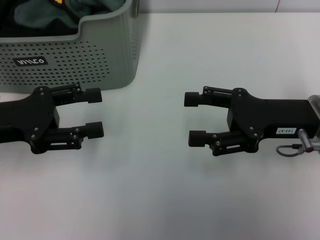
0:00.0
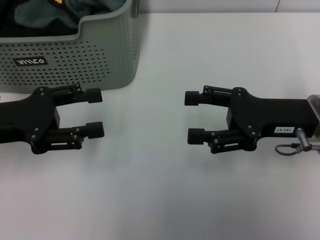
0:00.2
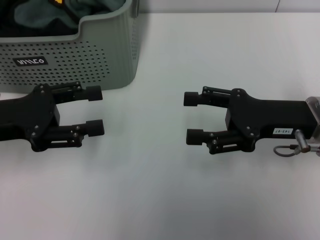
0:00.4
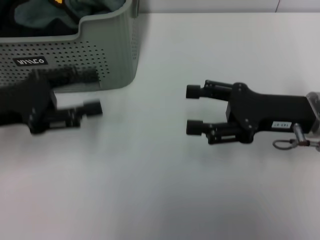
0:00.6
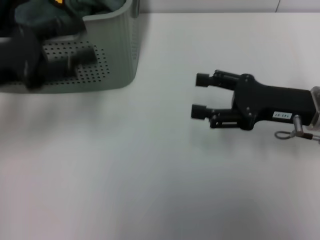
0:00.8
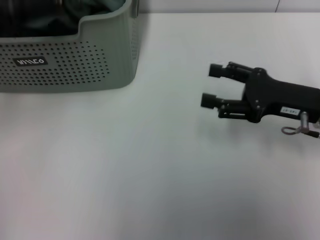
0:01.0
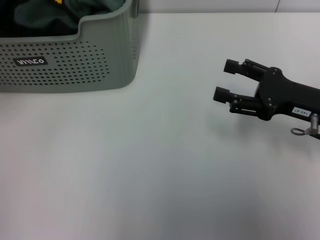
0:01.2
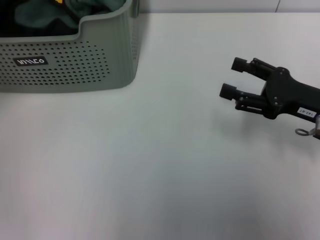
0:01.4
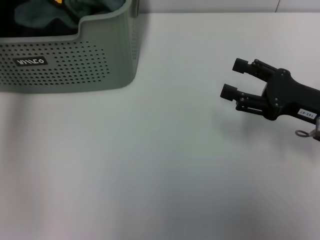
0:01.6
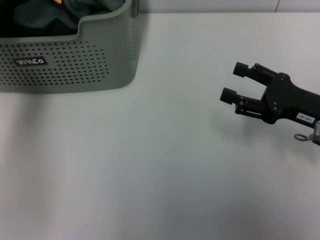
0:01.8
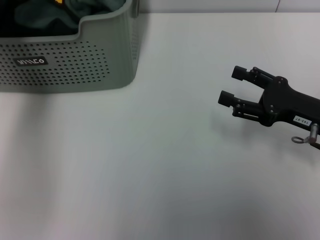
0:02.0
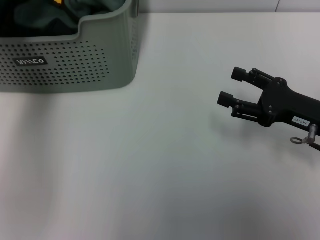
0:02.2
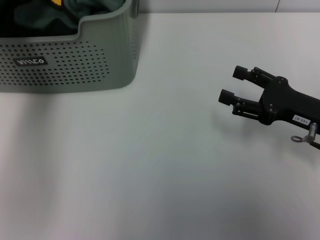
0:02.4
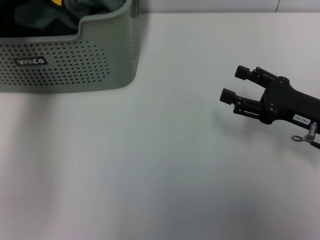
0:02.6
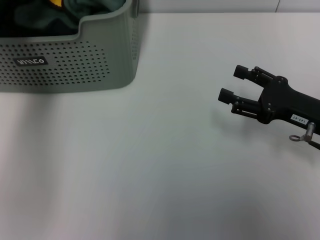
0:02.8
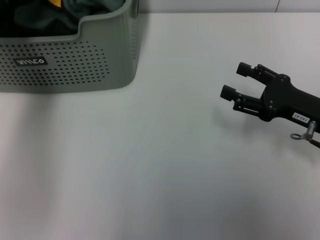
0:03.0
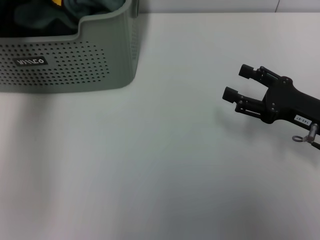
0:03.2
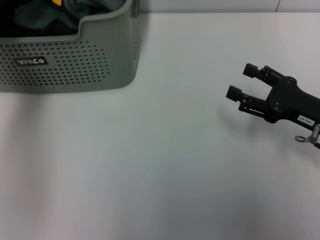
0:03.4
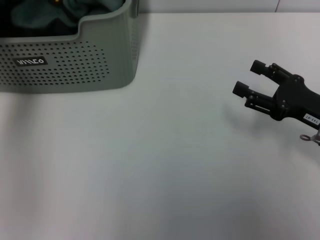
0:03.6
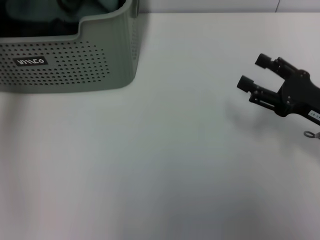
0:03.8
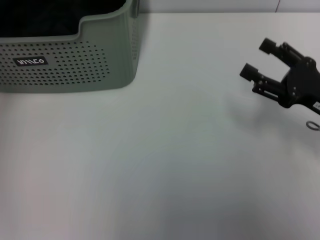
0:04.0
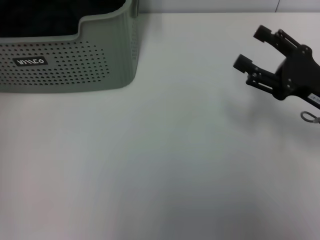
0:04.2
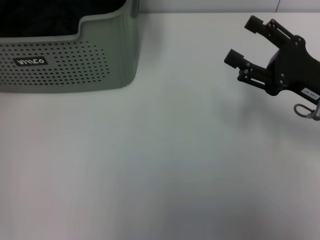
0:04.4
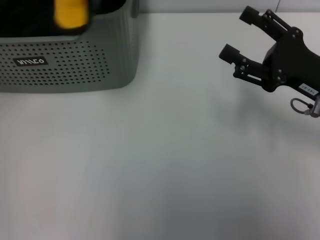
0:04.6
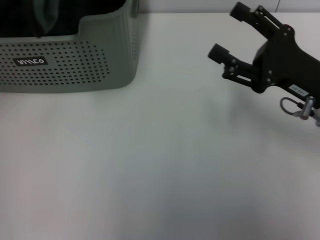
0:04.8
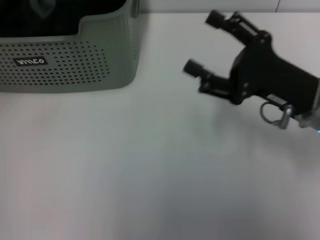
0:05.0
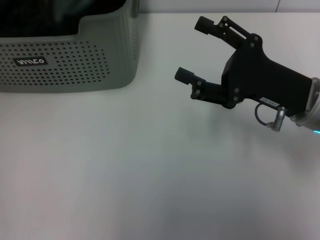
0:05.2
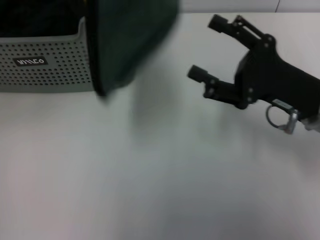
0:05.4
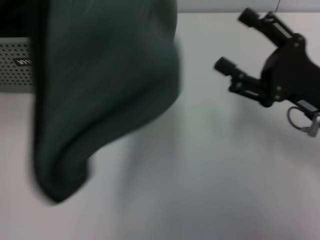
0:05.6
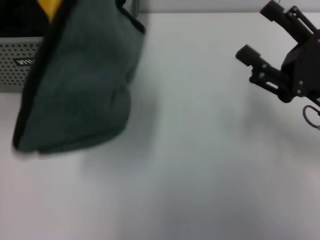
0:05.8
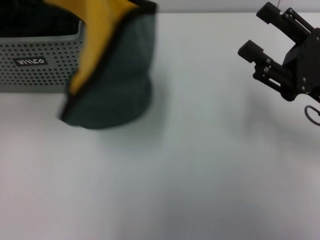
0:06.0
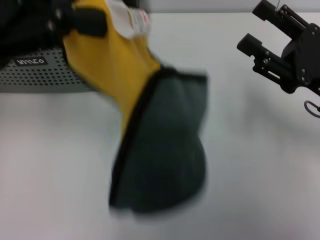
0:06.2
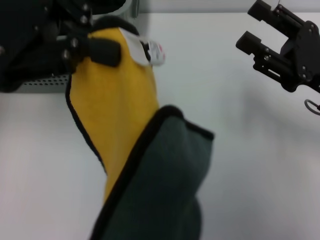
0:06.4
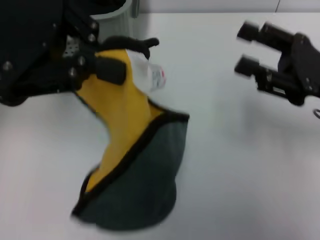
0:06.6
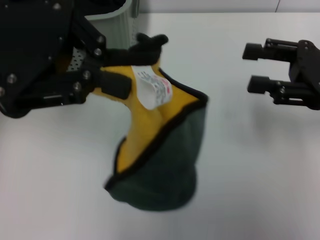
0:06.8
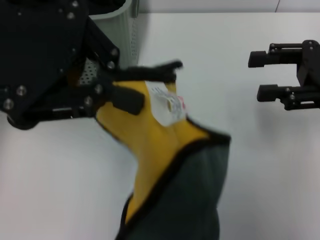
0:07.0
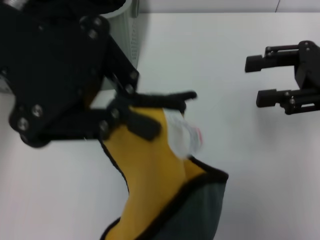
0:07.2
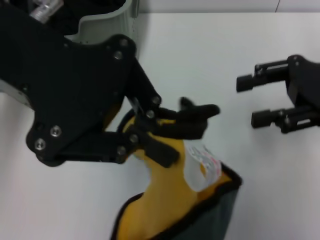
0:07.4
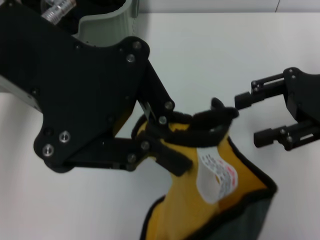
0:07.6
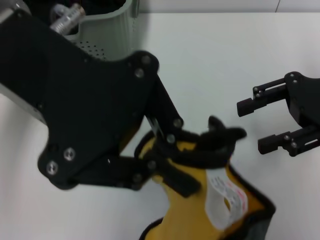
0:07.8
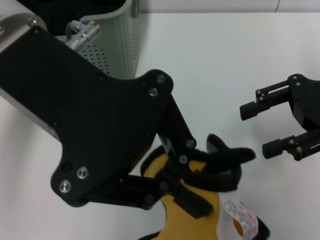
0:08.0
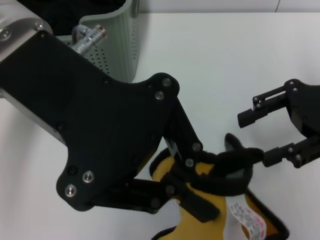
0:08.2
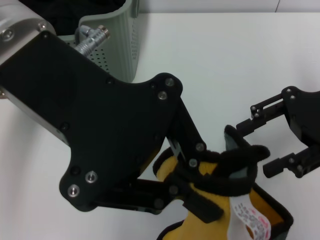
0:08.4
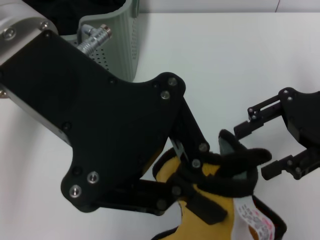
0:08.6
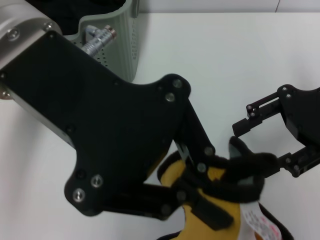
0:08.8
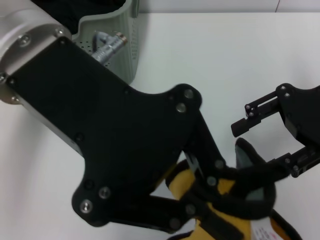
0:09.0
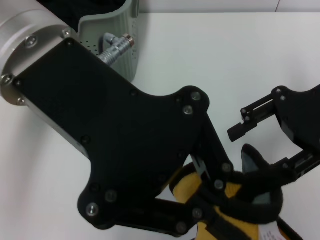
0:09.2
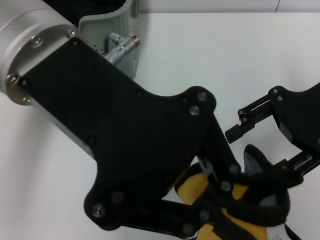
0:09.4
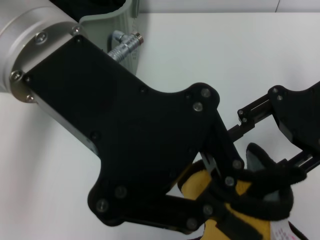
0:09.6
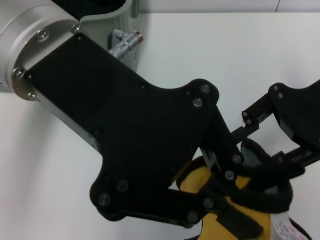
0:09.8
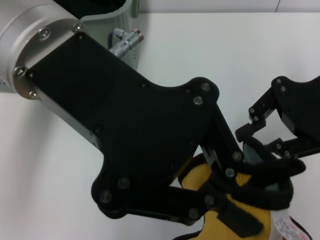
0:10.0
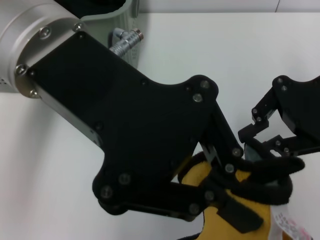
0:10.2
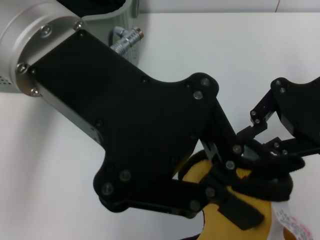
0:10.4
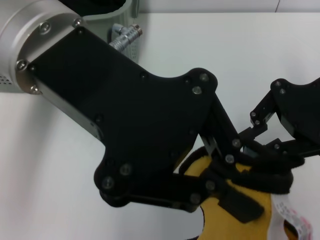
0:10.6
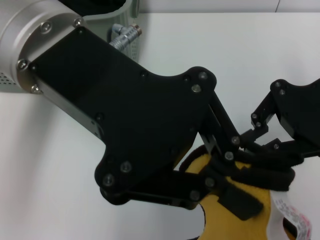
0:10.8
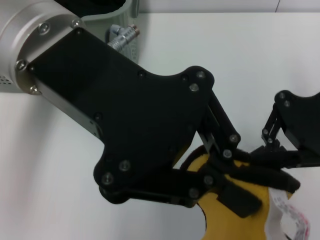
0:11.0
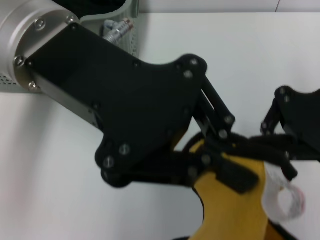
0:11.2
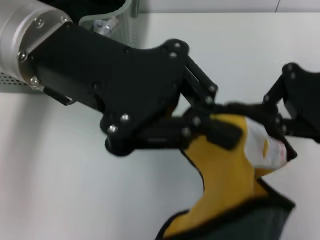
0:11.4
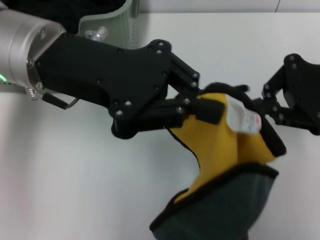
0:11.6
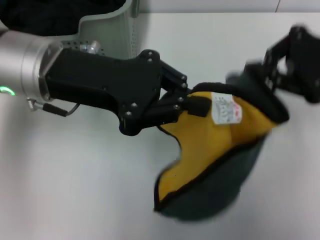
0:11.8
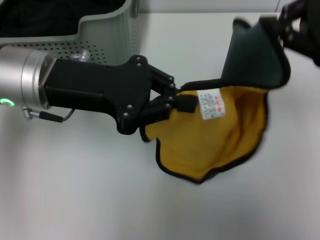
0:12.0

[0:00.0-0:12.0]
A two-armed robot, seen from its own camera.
Task of the whole recording: pick up the towel from the storage box and lay it flat on the table.
Step, 0:00.0 to 0:03.2: Pick up a towel with the left gripper.
Step, 0:03.4 to 0:10.8: Spread the towel flat with the left gripper.
0:00.0 to 0:01.6: The right gripper shifts by roughly 5 cm, while the left gripper travels upward and forward by some 20 cm.
0:01.6 to 0:03.0: The left gripper shifts roughly 5 cm downward.
0:03.0 to 0:04.4: The left gripper shifts about 15 cm upward, backward and to the left, and closes its fingers.
0:04.4 to 0:06.0: The left gripper changes place by about 5 cm.
0:06.0 to 0:07.6: The left gripper goes about 10 cm to the right, while the right gripper moves upward and forward, about 10 cm.
0:09.0 to 0:10.4: The right gripper closes.
0:10.4 to 0:12.0: The left gripper travels downward and to the left by roughly 10 cm.

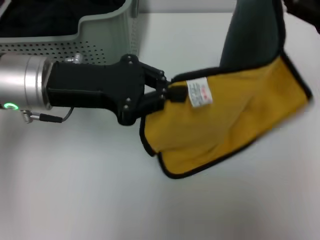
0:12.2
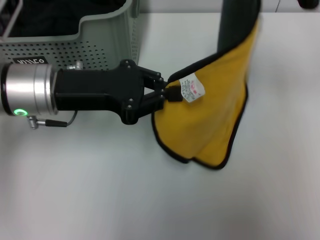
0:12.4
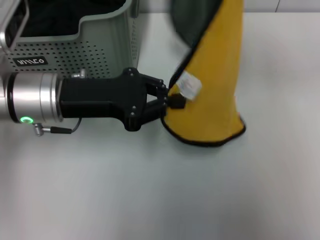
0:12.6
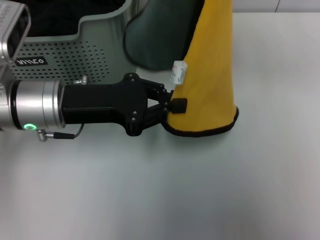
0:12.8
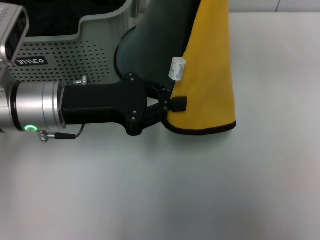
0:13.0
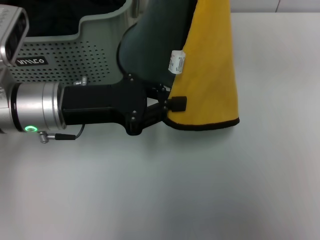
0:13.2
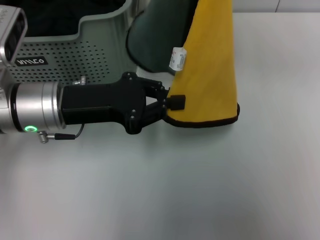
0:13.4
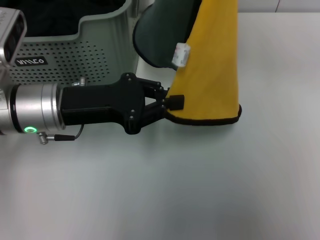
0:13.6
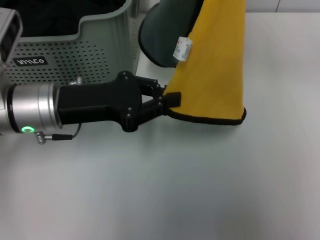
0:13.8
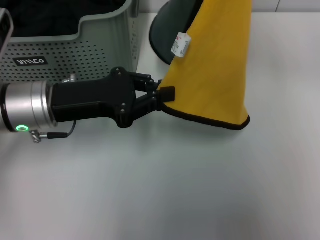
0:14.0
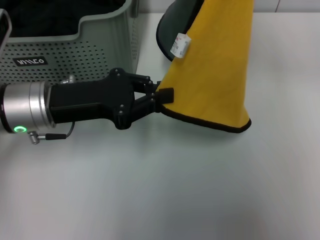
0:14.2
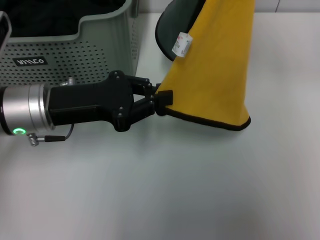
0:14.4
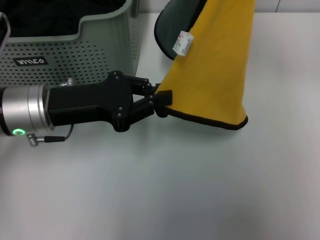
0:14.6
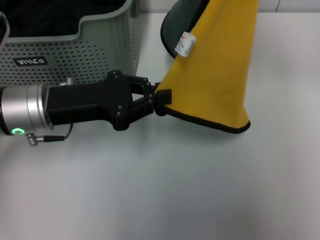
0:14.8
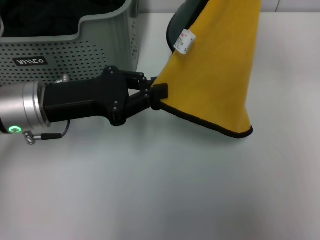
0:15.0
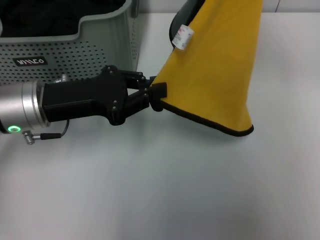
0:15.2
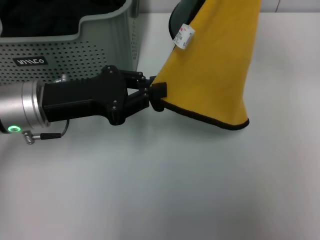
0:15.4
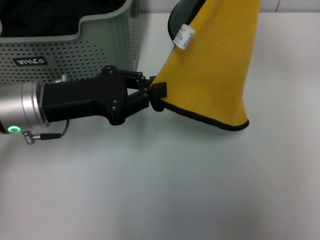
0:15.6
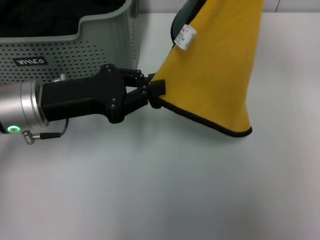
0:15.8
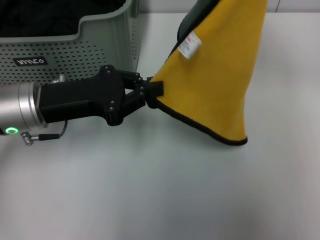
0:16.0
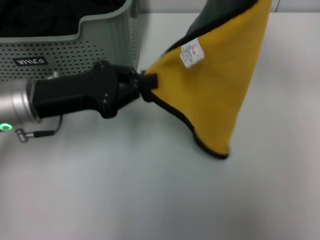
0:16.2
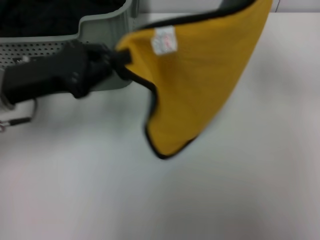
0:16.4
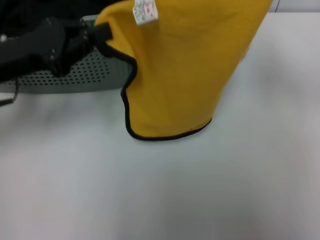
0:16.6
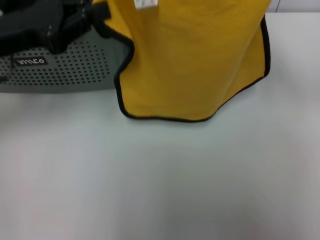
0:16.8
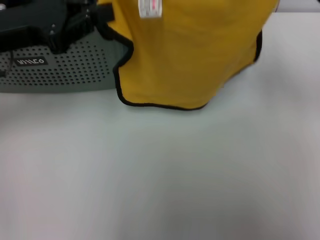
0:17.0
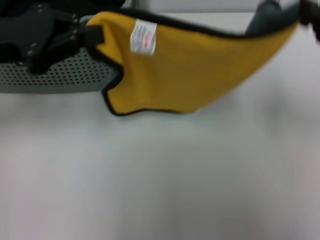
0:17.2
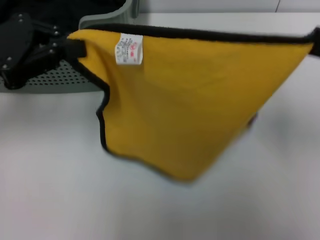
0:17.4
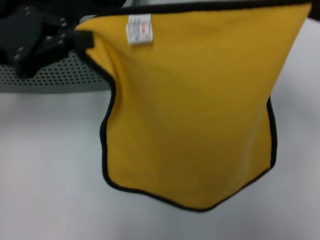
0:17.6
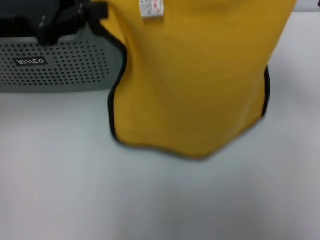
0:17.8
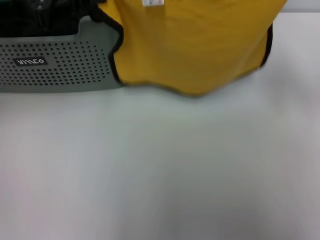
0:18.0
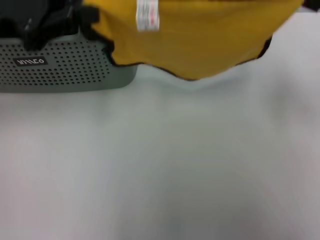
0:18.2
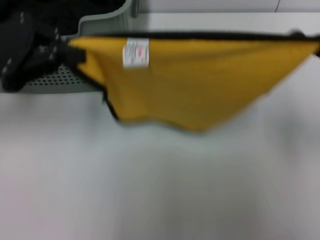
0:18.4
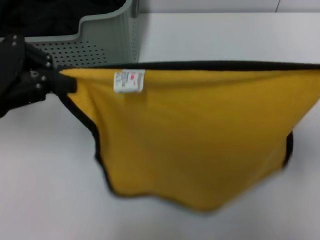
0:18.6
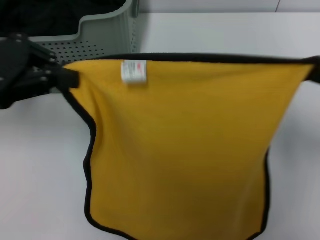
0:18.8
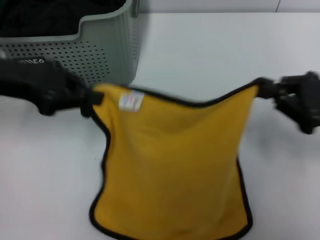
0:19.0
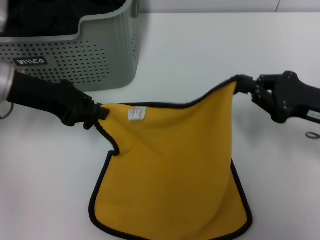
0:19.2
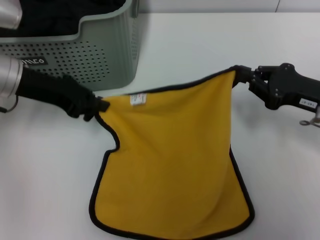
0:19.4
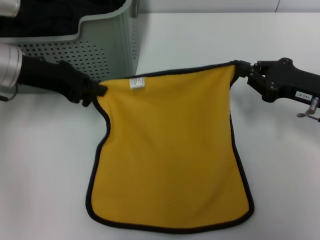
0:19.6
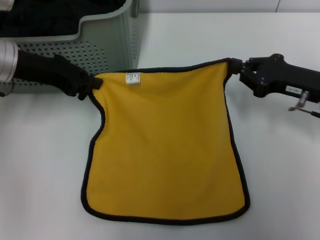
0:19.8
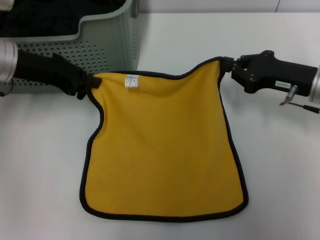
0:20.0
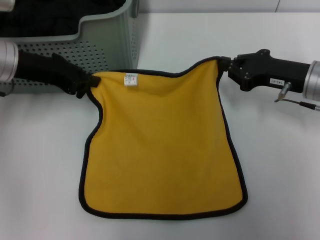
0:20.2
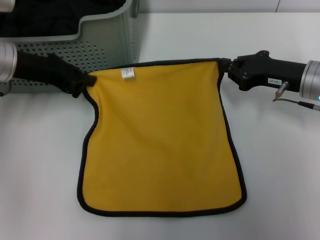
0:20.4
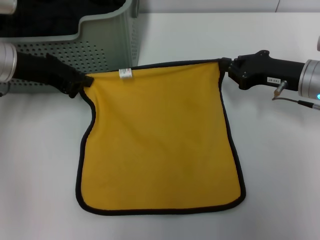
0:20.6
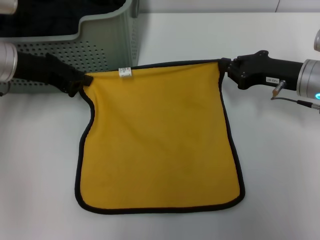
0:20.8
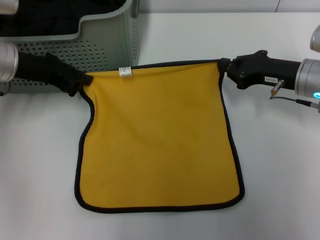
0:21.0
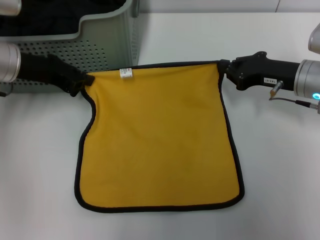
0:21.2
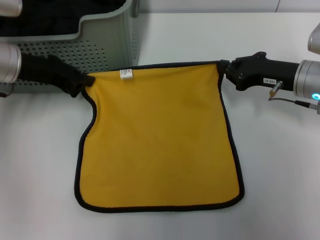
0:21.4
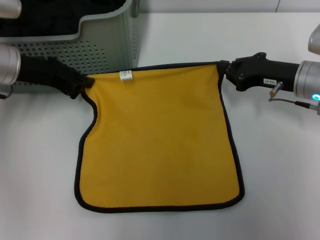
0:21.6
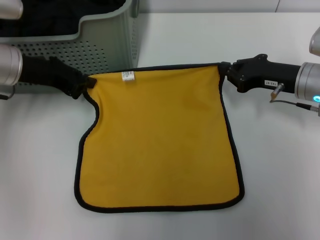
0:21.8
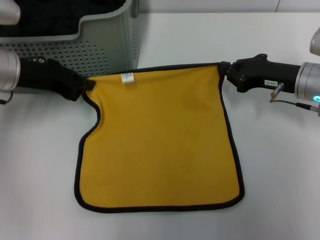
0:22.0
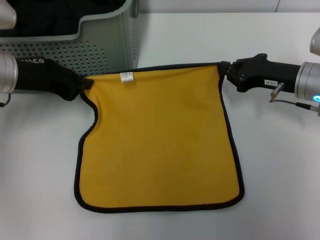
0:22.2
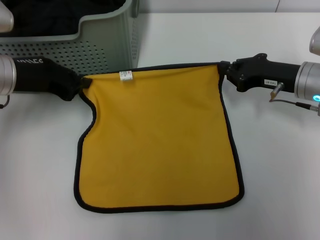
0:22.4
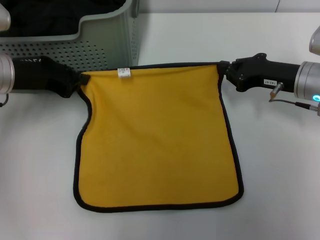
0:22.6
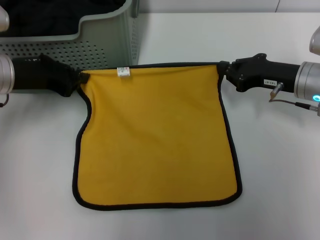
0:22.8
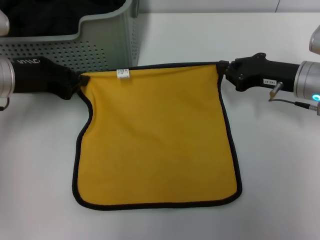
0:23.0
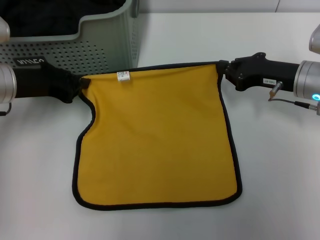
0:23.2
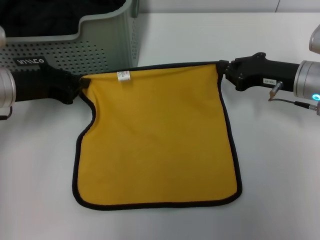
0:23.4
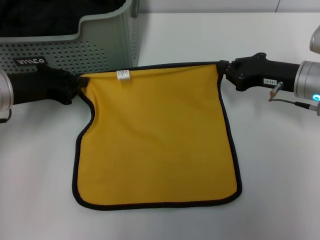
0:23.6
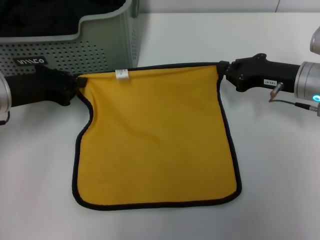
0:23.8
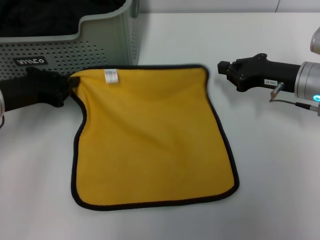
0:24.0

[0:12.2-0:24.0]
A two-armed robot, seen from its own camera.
Task of the whole recording: pick up the towel from the storage box and lay it flat on the table.
0:12.2 to 0:13.6: The right gripper travels upward by roughly 5 cm; the left gripper moves downward, some 5 cm.
0:13.6 to 0:15.2: The grippers stay close to where they were, moving slightly.
0:15.2 to 0:16.6: The right gripper is displaced downward by some 5 cm; the left gripper is displaced to the left by roughly 5 cm.
0:16.6 to 0:18.2: The left gripper moves upward, about 5 cm. Meanwhile the right gripper changes place by roughly 5 cm.
0:18.2 to 0:19.6: Both grippers move downward, approximately 10 cm.
0:19.6 to 0:21.0: The right gripper changes place by roughly 5 cm.
0:21.0 to 0:22.6: The grippers stay close to where they were, moving slightly.
0:22.6 to 0:24.0: The left gripper shifts by some 5 cm.
